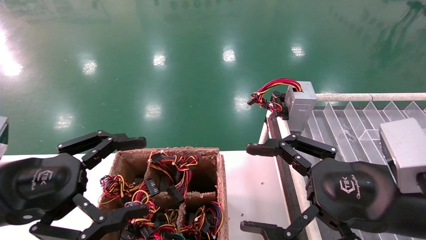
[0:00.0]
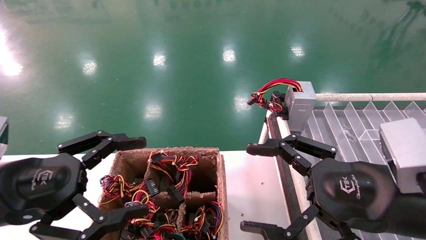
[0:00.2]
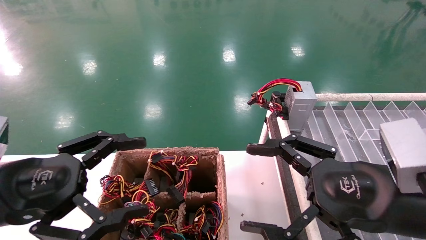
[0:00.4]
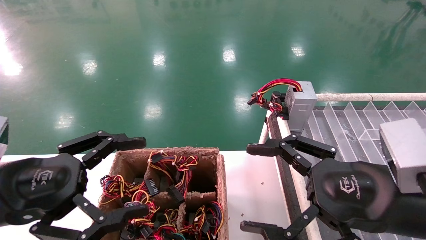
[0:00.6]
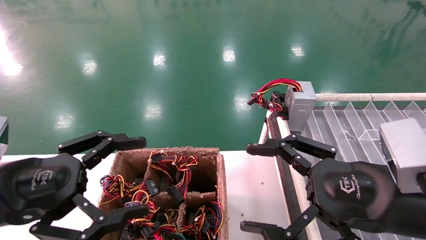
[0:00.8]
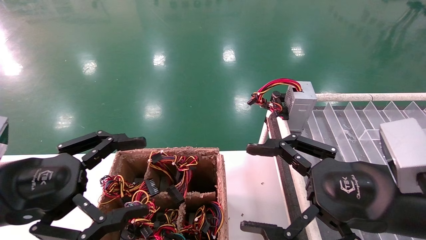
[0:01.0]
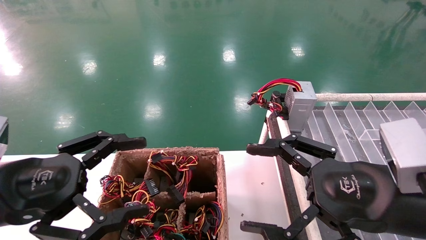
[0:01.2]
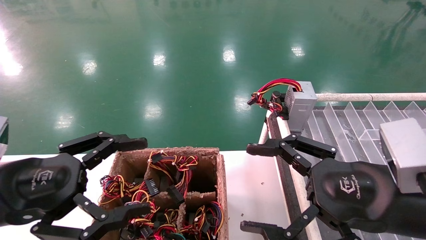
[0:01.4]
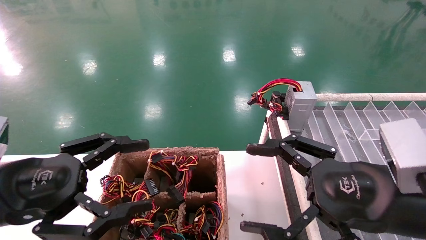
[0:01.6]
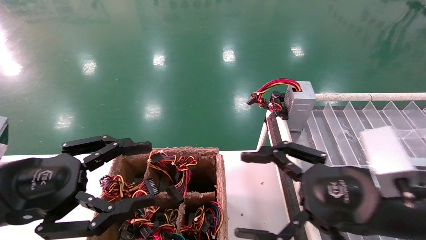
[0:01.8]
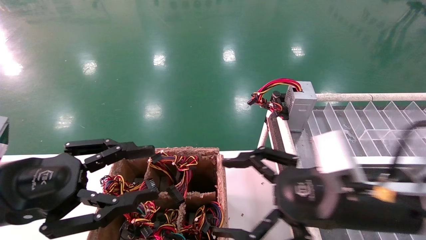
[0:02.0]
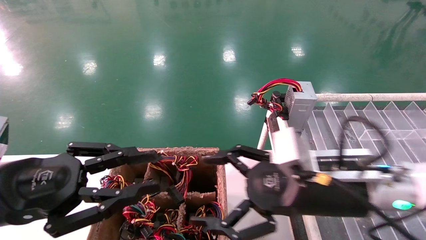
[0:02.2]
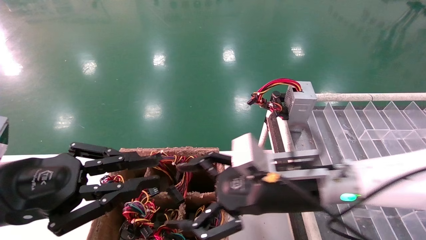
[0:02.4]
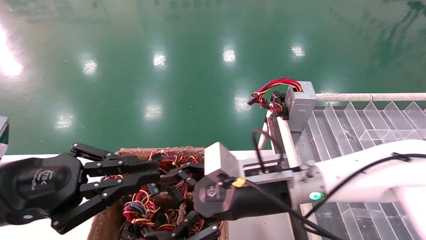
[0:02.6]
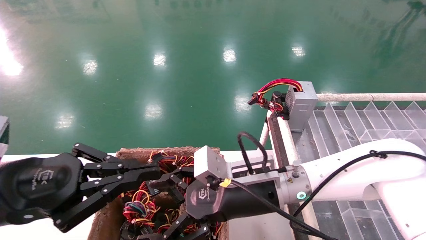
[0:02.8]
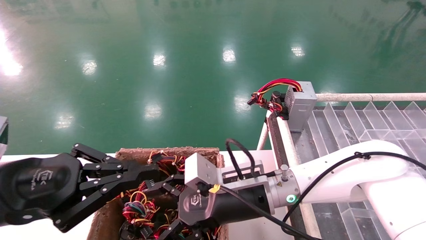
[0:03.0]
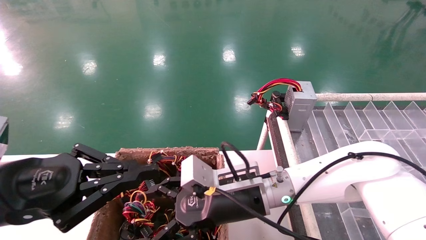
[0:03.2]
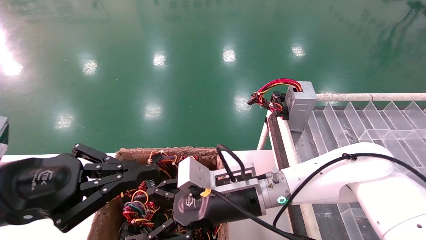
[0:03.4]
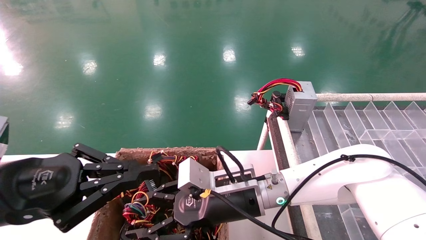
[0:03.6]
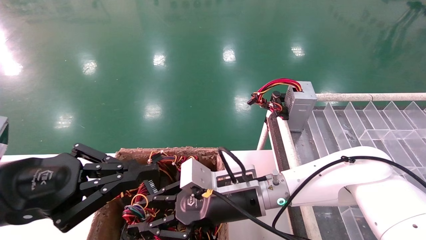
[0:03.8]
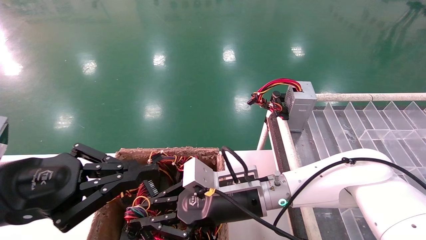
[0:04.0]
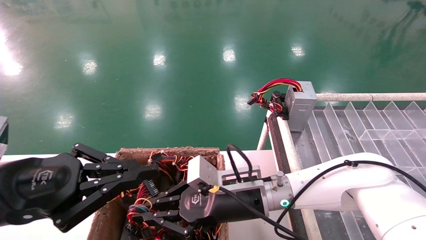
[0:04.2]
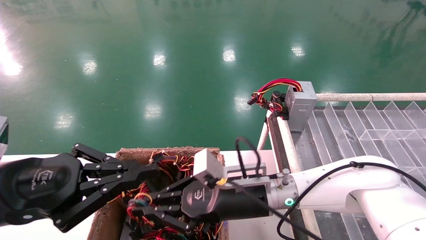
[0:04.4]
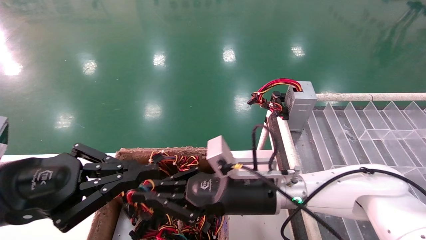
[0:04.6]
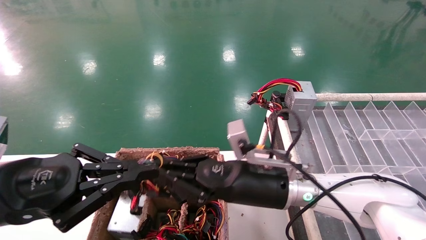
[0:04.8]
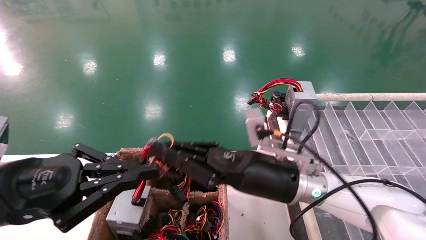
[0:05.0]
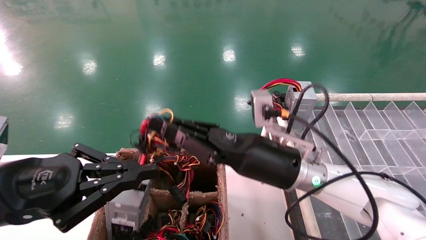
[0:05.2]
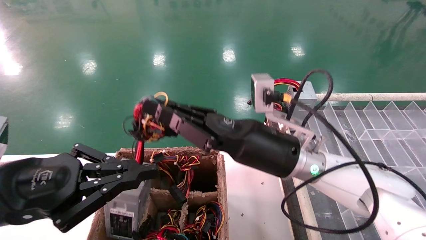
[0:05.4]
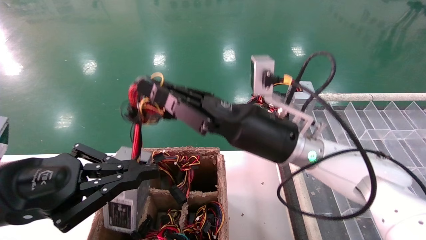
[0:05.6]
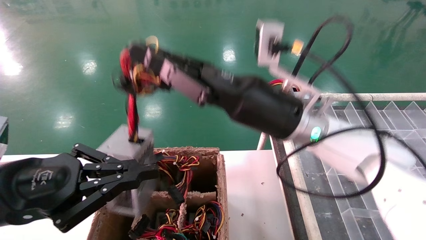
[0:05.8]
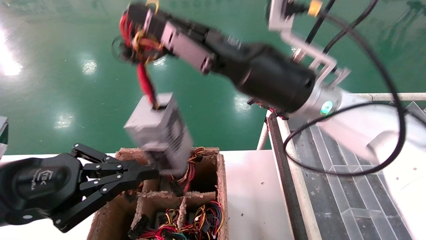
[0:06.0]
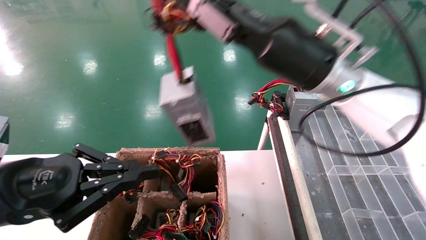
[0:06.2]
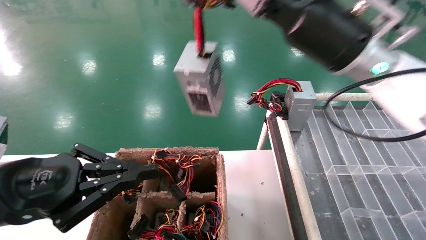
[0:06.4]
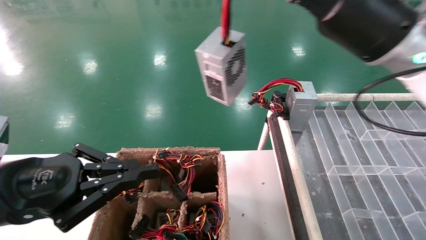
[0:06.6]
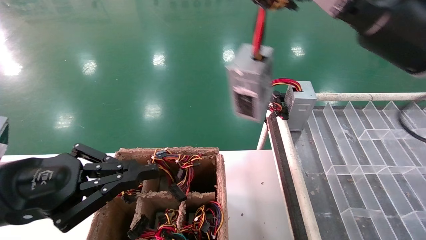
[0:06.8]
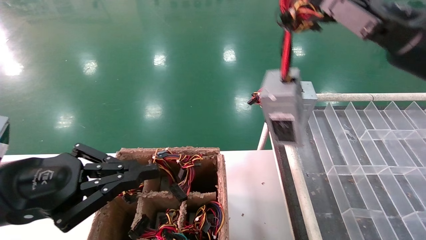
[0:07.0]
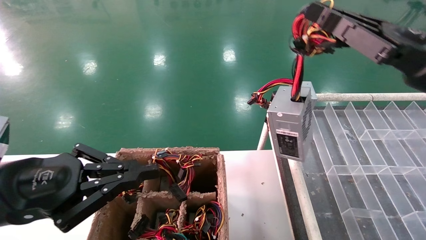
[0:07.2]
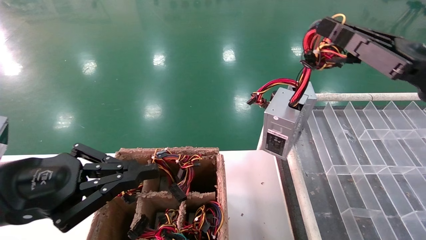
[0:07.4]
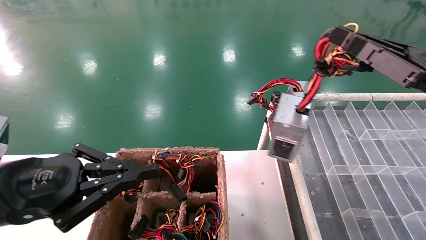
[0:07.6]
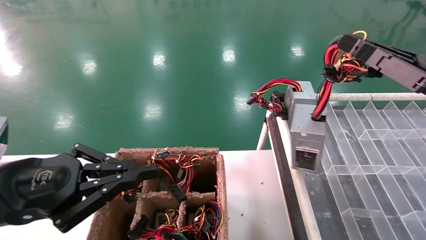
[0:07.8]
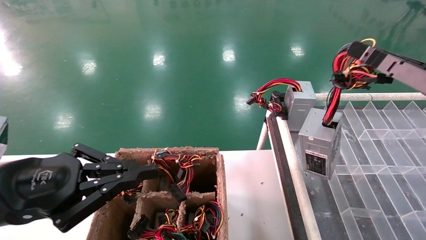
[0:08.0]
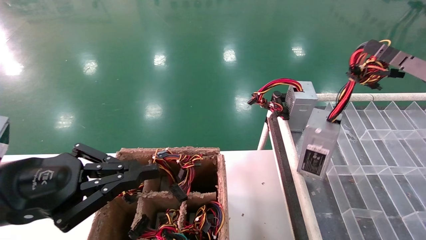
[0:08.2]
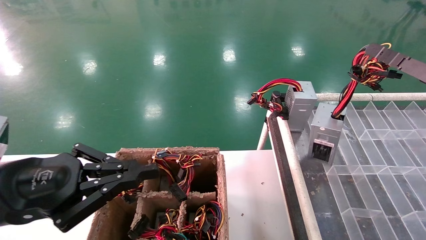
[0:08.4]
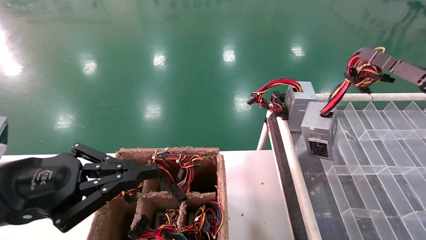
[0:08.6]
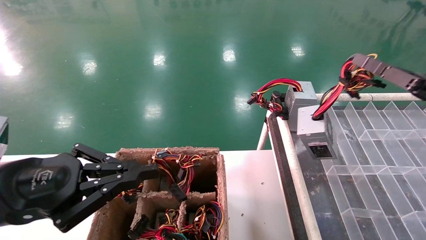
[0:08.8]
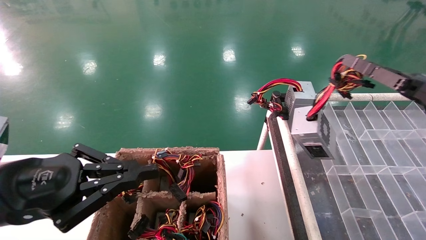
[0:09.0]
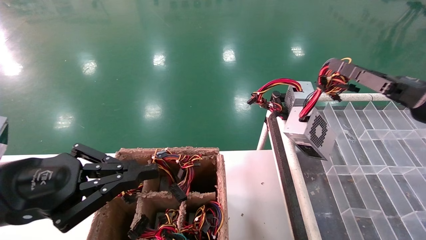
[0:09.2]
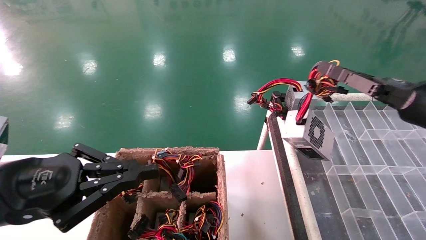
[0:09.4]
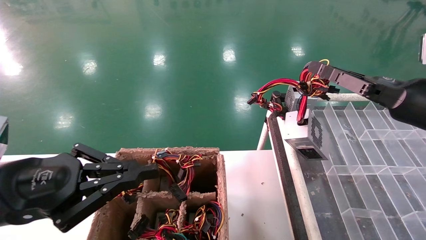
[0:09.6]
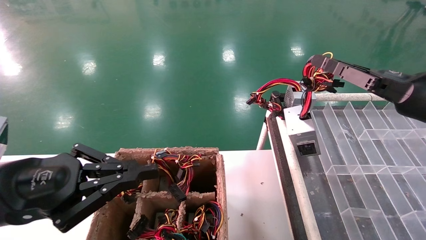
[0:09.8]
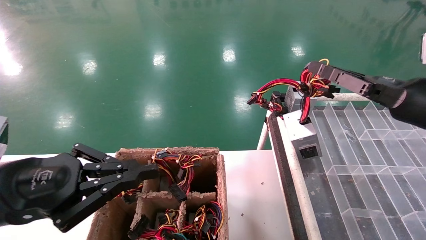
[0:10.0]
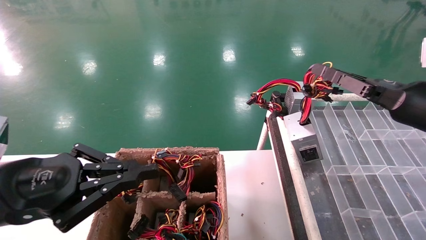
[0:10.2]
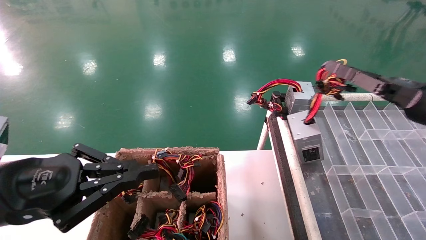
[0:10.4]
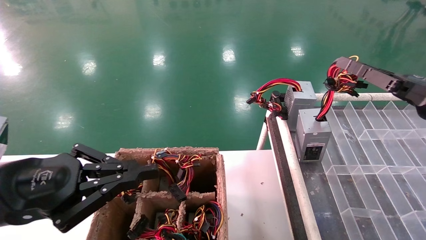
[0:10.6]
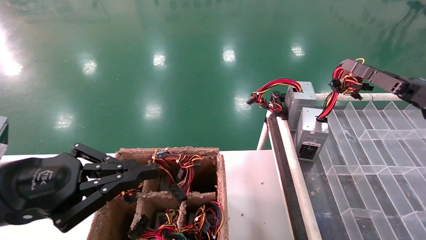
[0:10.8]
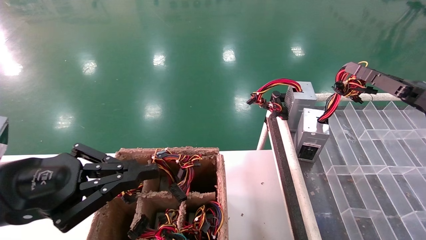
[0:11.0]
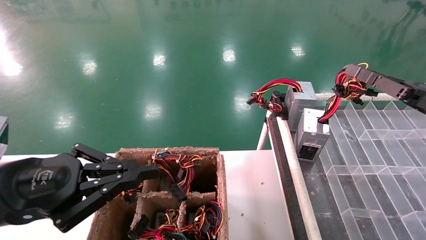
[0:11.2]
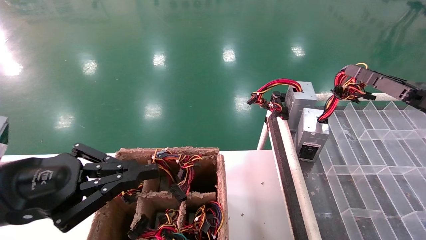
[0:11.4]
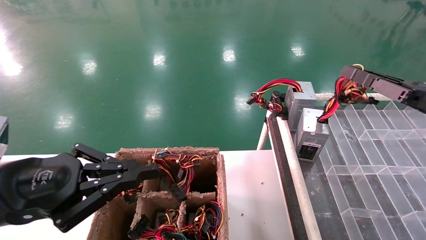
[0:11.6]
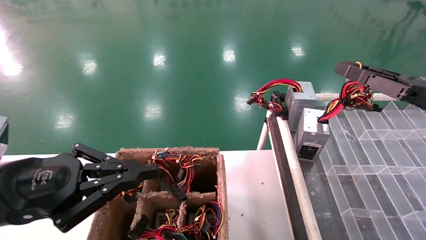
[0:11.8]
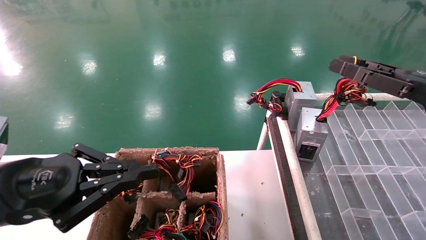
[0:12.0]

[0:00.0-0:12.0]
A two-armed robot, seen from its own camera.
Step, 0:02.0 to 0:04.0: Grab the main unit power supply from the containment box.
0:00.0 to 0:01.6: The two grippers keep their place.
0:01.6 to 0:03.0: The left gripper closes; the right gripper heads to the left, forward and downward, covering some 20 cm.
0:03.0 to 0:04.4: The right gripper closes its fingers.
0:04.4 to 0:06.0: The right gripper goes some 20 cm upward.
0:06.0 to 0:07.6: The right gripper shifts roughly 25 cm to the right.
0:07.6 to 0:09.0: The right gripper shifts about 10 cm to the right and forward.
0:09.0 to 0:10.4: The grippers stay close to where they were, moving slightly.
0:10.4 to 0:12.0: The right gripper opens up.

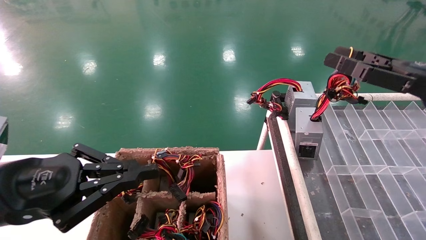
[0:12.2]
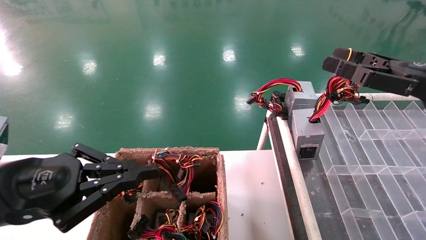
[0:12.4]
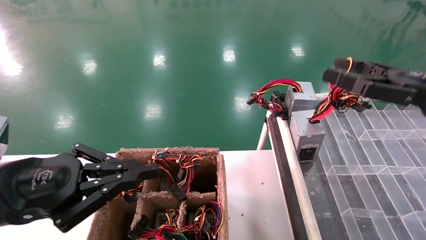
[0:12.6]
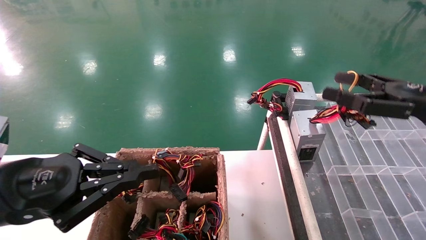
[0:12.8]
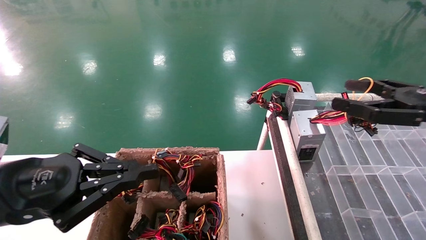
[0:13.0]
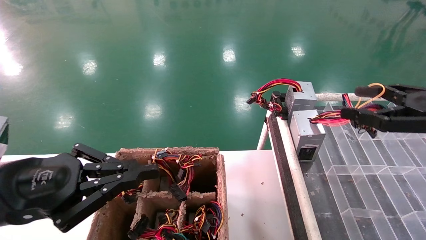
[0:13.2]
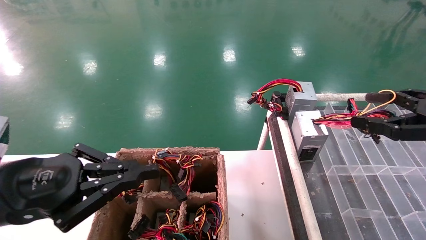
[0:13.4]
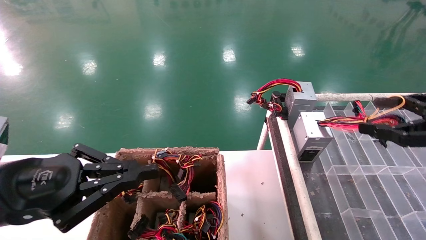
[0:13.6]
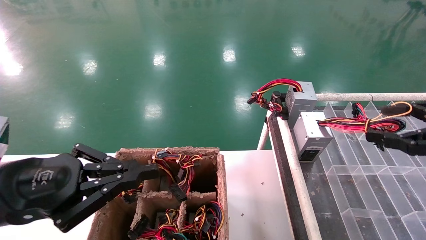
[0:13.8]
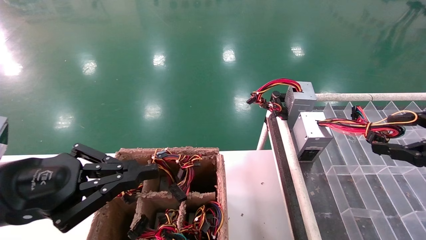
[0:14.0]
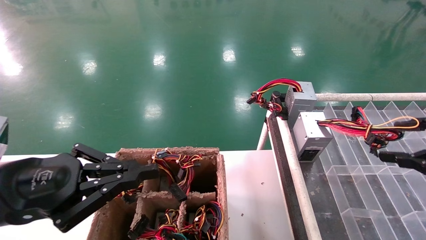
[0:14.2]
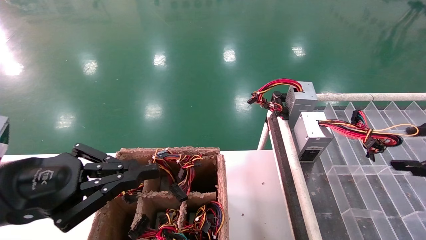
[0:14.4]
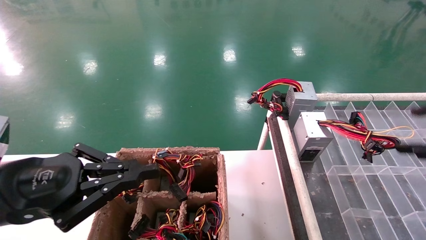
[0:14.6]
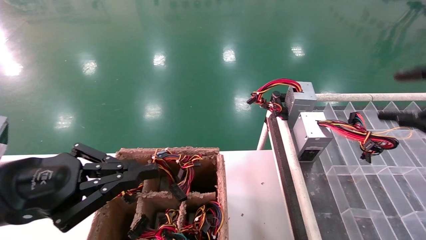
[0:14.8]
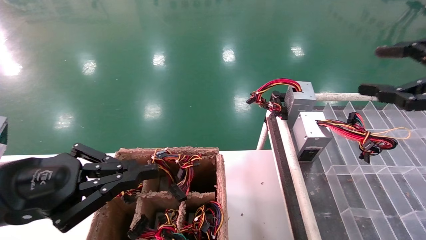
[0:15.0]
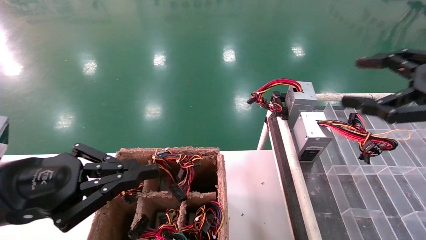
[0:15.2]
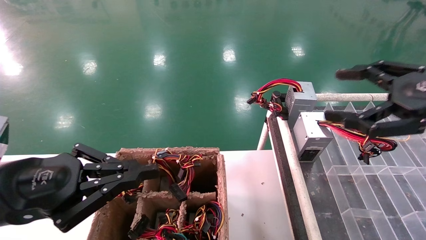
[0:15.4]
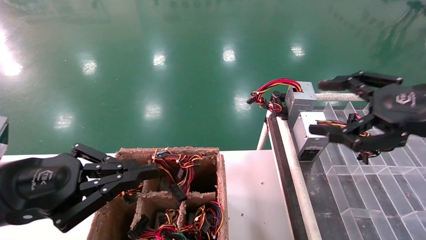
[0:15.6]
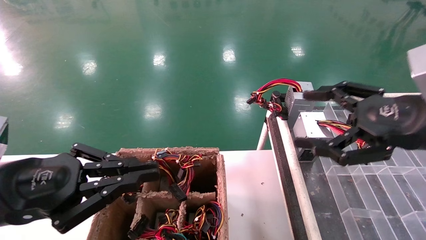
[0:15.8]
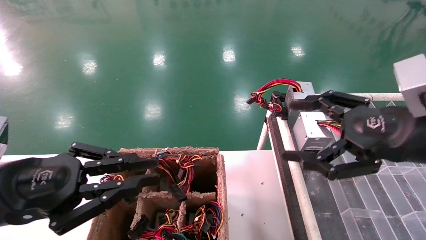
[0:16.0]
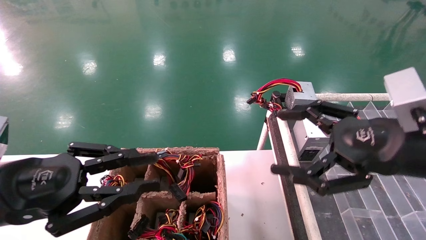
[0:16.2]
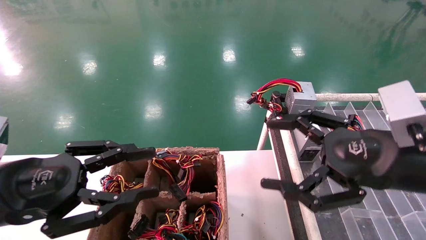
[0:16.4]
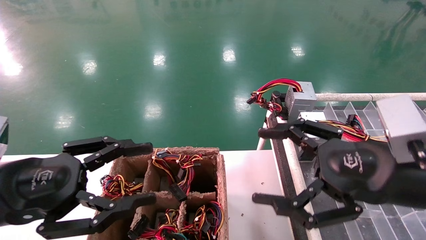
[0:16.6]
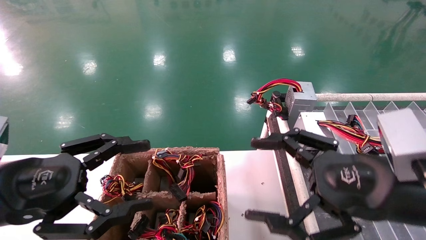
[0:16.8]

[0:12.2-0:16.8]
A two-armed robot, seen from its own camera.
Step, 0:12.2 to 0:14.8: Place the main unit power supply in the designated area.
0:12.2 to 0:13.8: The right gripper shifts about 10 cm to the right and backward, and opens its fingers.
0:13.8 to 0:15.2: The right gripper goes some 10 cm to the left and upward.
0:15.2 to 0:16.8: The left gripper opens up; the right gripper shifts approximately 15 cm to the left and downward.
